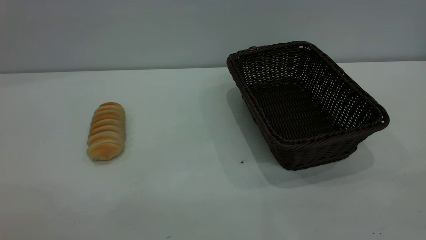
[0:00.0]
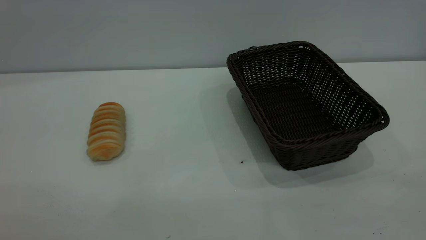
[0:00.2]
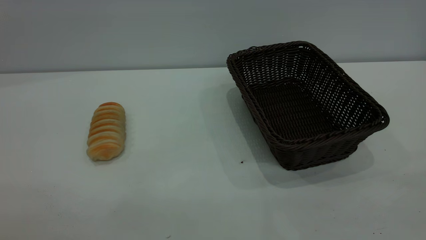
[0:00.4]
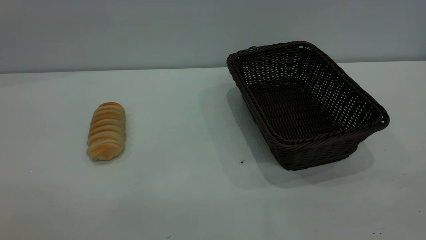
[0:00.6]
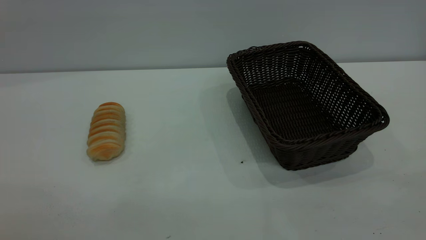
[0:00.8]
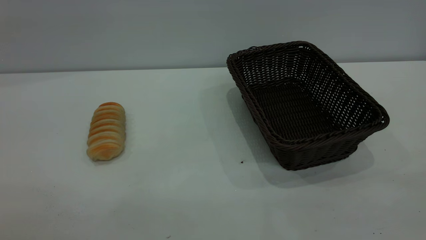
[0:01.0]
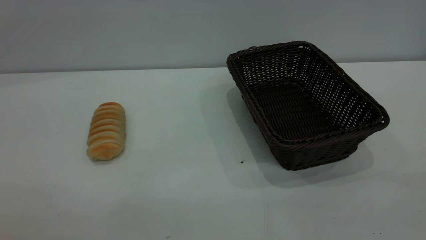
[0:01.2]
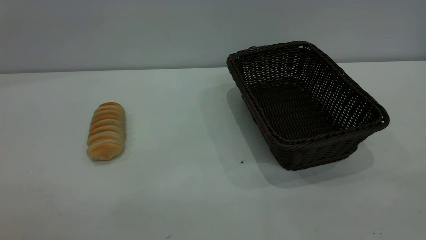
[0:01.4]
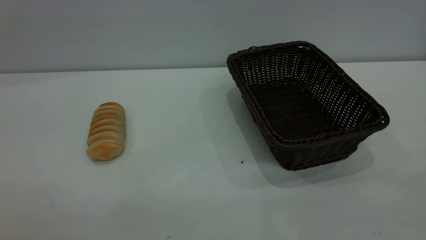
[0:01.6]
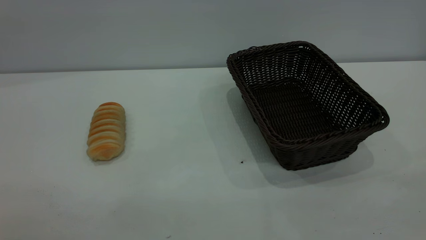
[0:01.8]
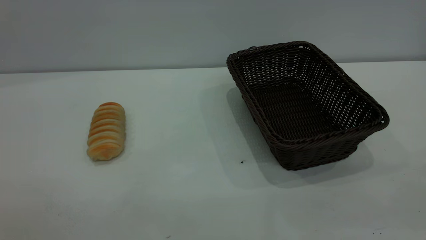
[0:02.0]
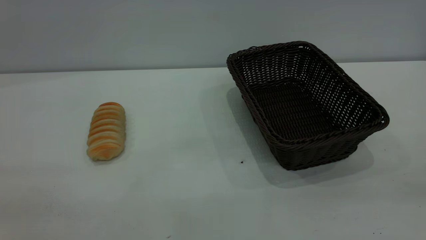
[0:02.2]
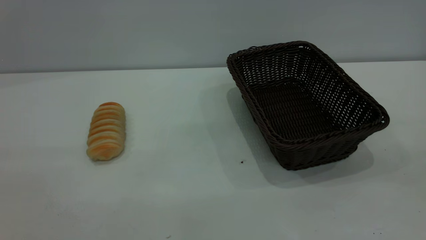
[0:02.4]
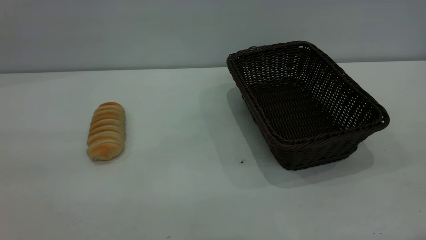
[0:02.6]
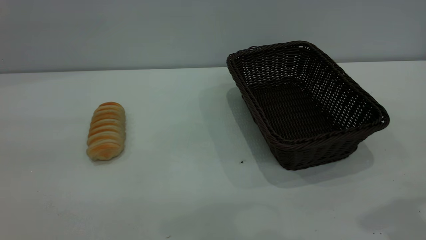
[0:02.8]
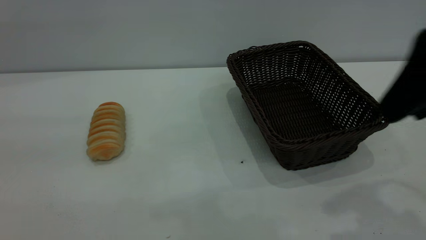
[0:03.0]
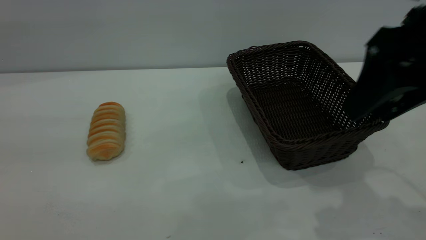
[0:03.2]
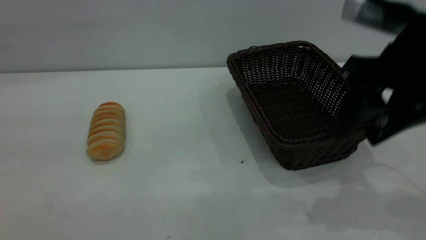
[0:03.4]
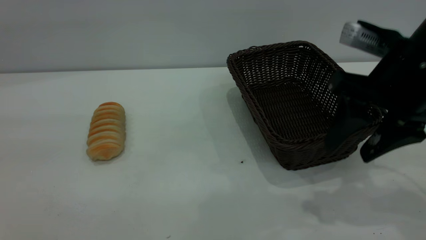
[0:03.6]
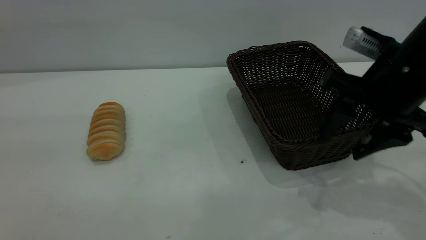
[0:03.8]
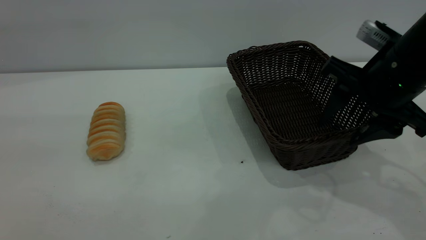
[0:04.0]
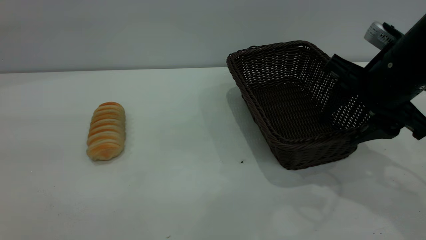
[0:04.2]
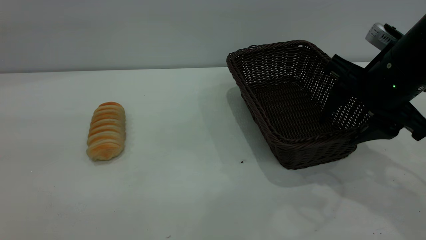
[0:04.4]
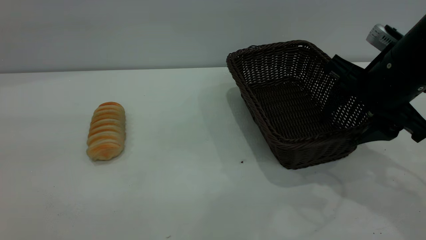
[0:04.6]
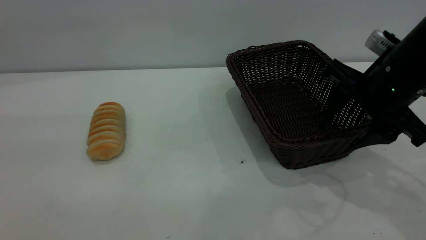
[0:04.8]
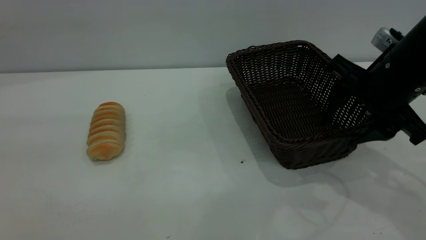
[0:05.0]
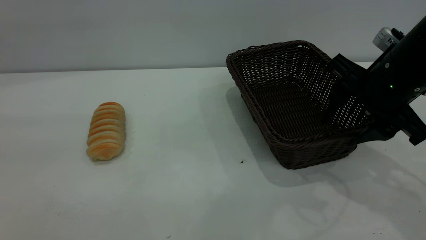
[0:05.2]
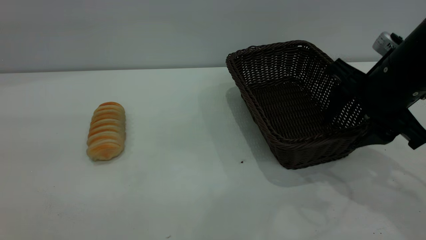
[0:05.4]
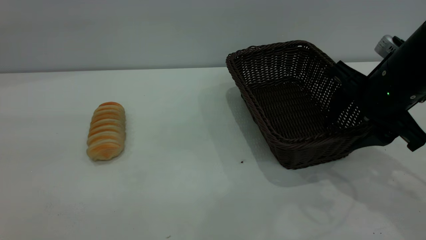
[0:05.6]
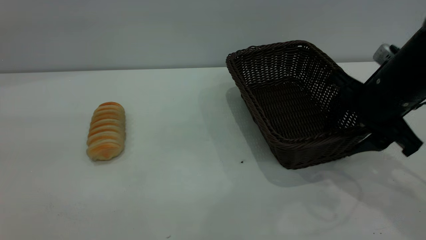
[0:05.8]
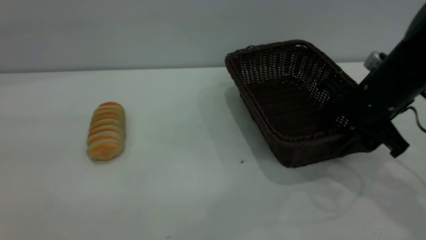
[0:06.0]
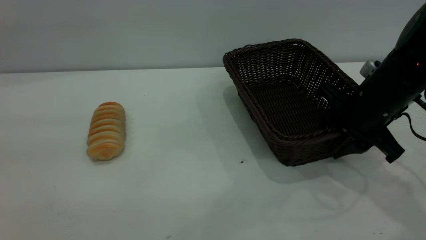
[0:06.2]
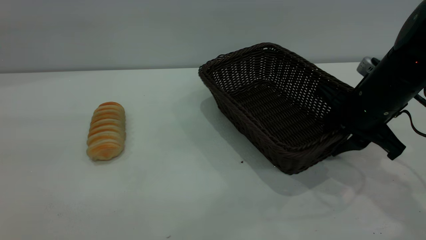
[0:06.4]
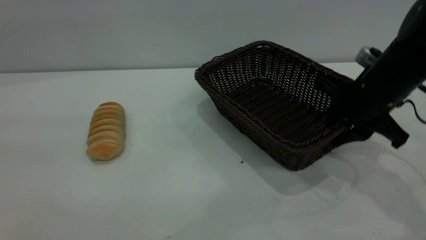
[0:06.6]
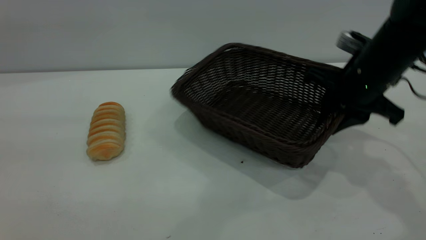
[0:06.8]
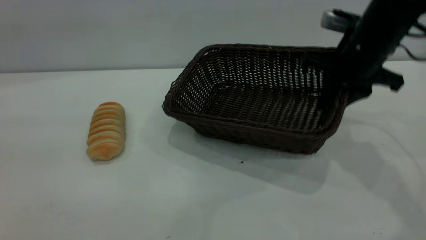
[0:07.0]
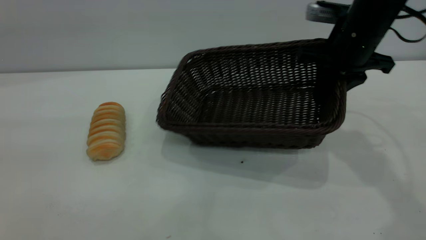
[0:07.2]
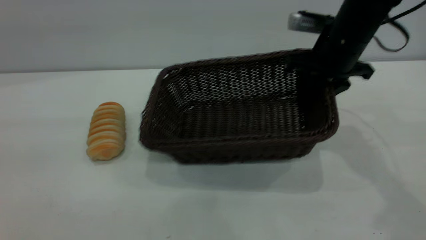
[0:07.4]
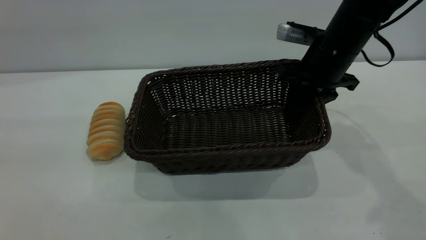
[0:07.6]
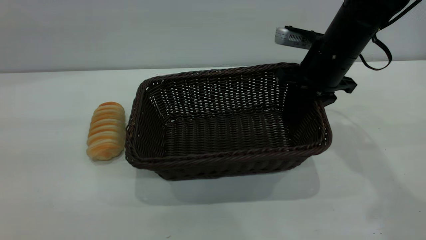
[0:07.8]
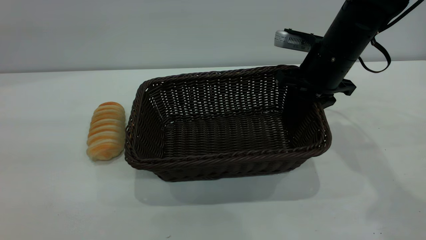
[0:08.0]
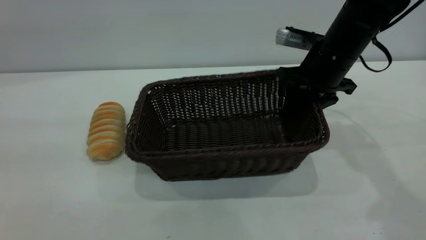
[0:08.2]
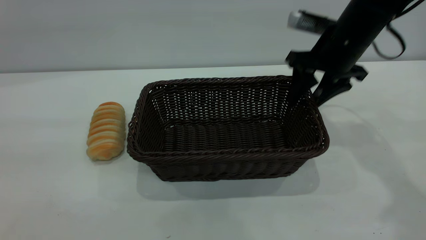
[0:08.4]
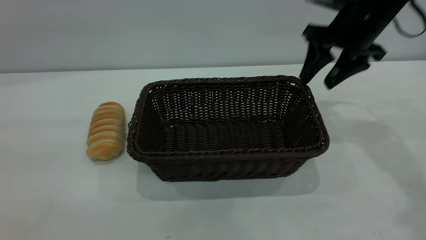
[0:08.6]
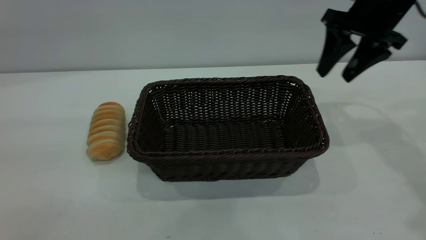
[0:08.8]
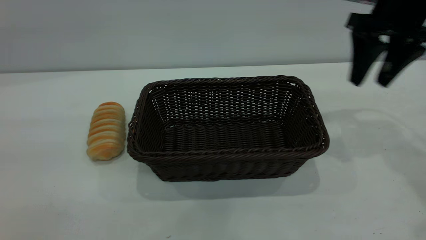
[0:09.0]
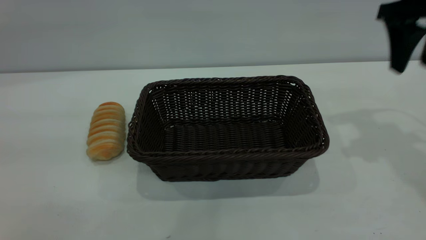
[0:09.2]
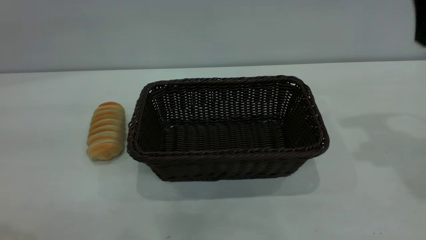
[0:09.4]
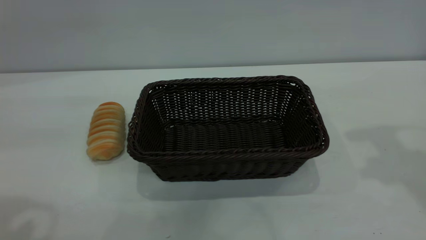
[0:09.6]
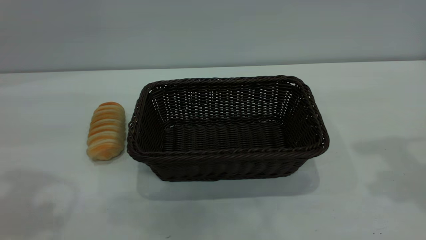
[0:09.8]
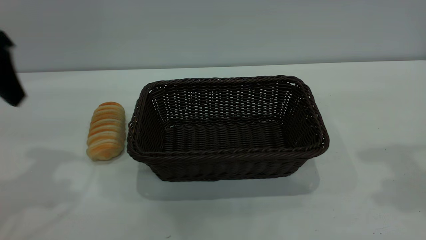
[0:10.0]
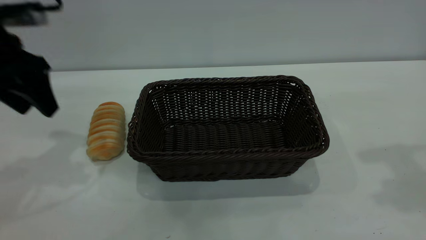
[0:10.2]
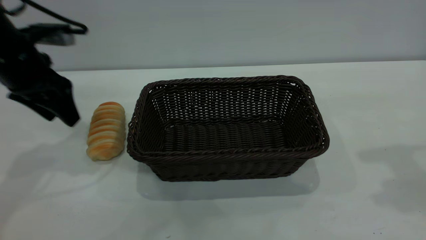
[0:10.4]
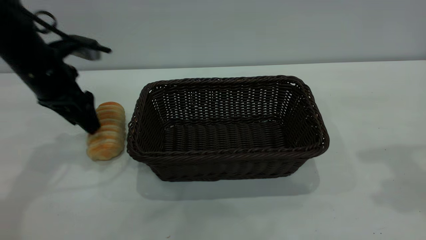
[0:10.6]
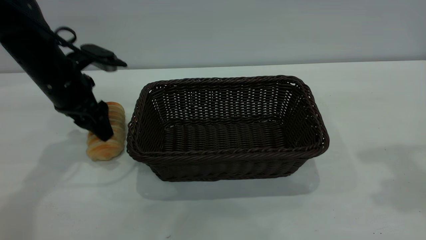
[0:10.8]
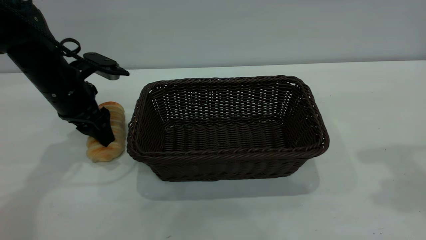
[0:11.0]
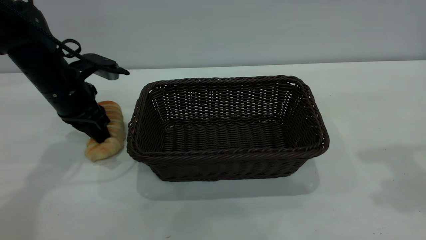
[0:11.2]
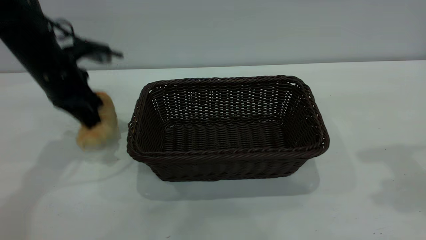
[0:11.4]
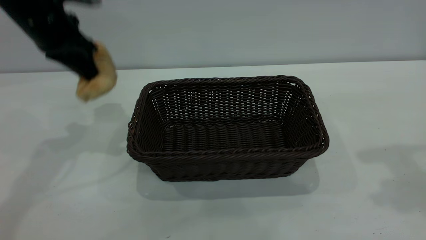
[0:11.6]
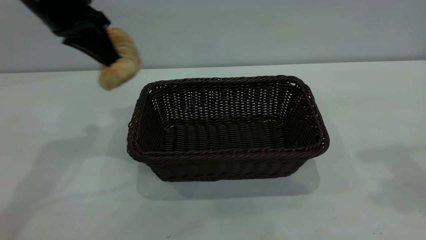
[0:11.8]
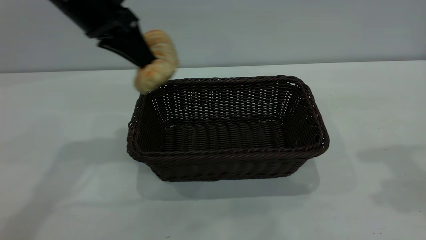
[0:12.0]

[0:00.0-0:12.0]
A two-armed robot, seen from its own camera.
Task of the whole recording: One hand grasps the black basket and places it in the middle of the table, while the other hand picks up the long bread and puts it into the black basket.
Step, 0:00.0 to 0:08.8: Move the basket to the center of view.
0:00.0 to 0:01.6: Both grippers stay put.
0:01.6 to 0:03.0: The right gripper goes about 25 cm forward.
0:03.0 to 0:04.4: The right gripper shifts some 15 cm downward and forward.
0:04.4 to 0:06.0: The right gripper moves downward, about 5 cm.
0:06.0 to 0:07.6: The right gripper is displaced forward by some 10 cm, and closes its fingers.
0:07.6 to 0:09.0: The right gripper goes approximately 10 cm upward and to the right, and opens.
0:09.0 to 0:10.4: The right gripper is displaced backward and upward by approximately 15 cm; the left gripper is displaced forward and downward by about 35 cm.
0:10.4 to 0:12.0: The left gripper shifts roughly 15 cm to the right and upward, and closes.

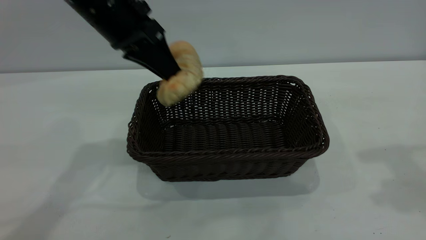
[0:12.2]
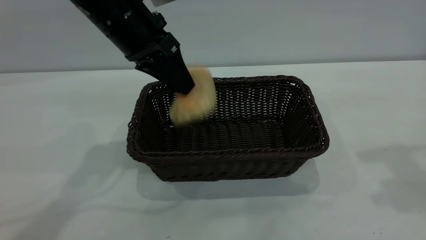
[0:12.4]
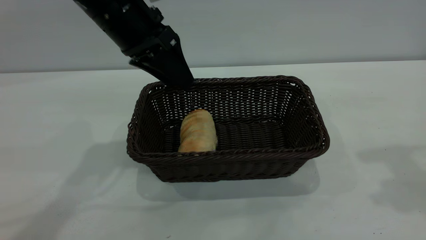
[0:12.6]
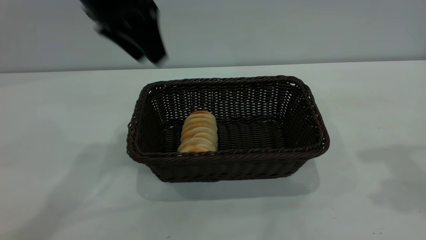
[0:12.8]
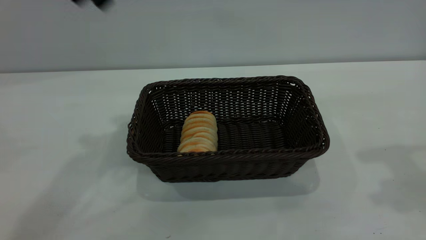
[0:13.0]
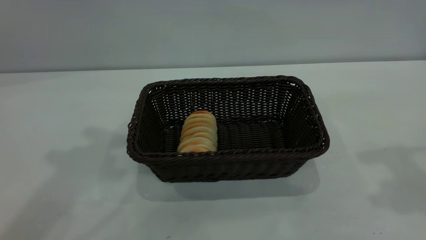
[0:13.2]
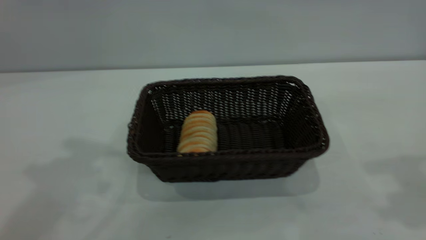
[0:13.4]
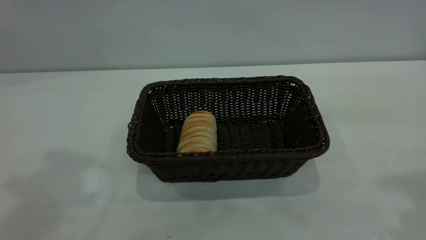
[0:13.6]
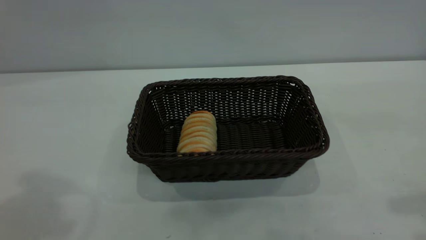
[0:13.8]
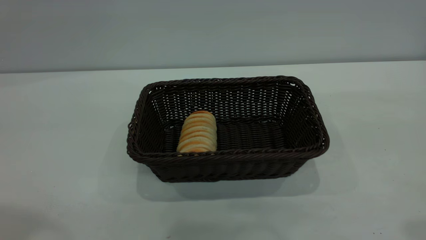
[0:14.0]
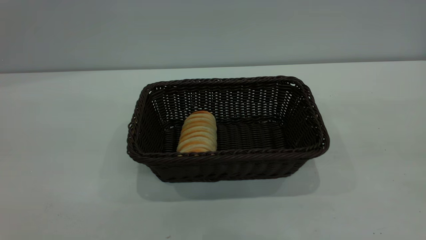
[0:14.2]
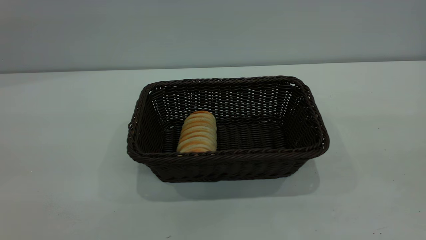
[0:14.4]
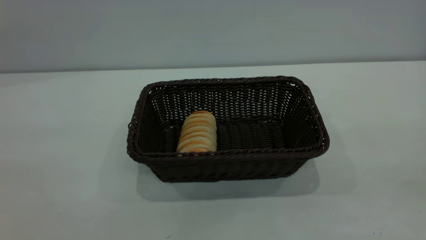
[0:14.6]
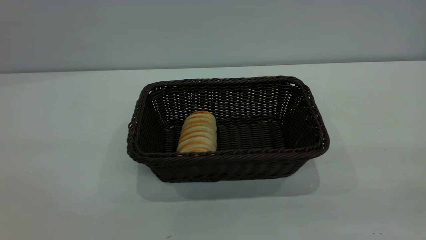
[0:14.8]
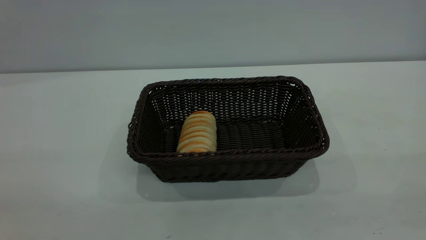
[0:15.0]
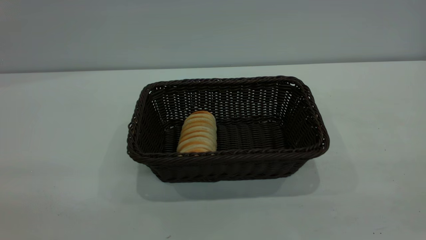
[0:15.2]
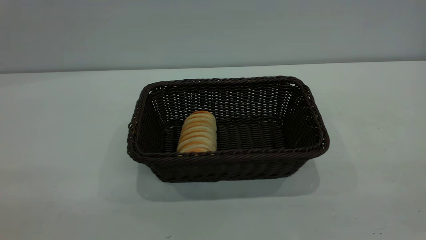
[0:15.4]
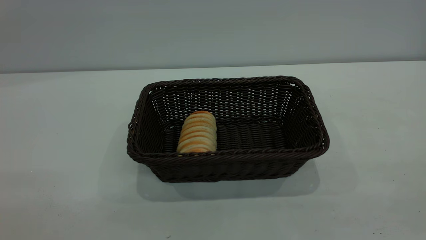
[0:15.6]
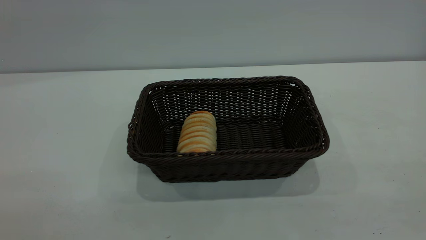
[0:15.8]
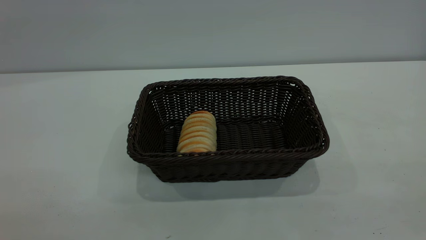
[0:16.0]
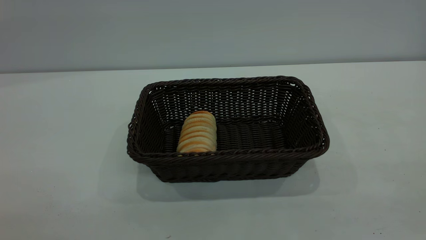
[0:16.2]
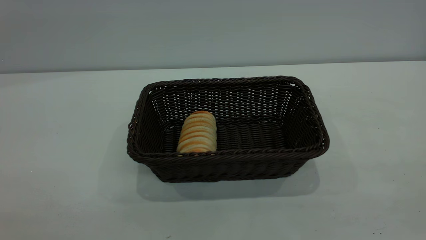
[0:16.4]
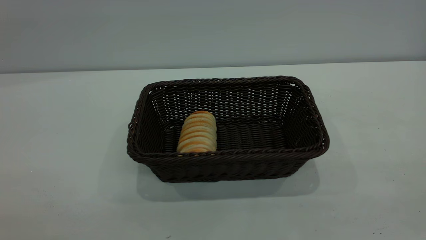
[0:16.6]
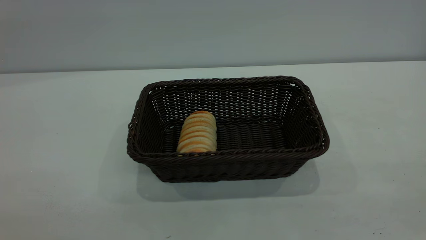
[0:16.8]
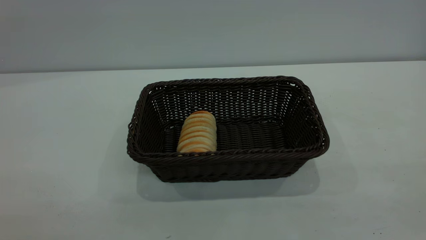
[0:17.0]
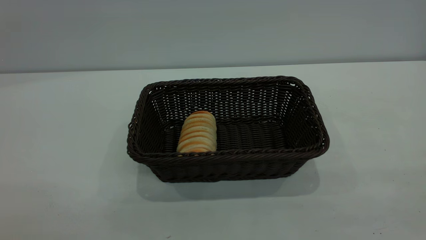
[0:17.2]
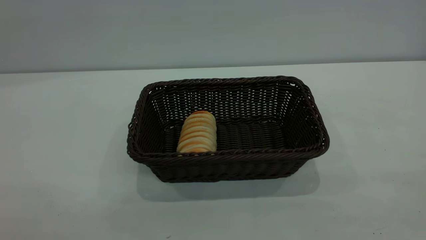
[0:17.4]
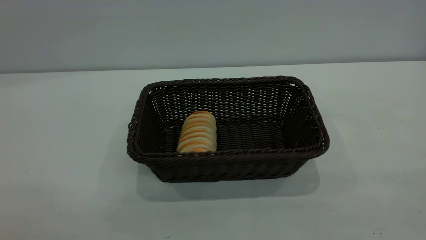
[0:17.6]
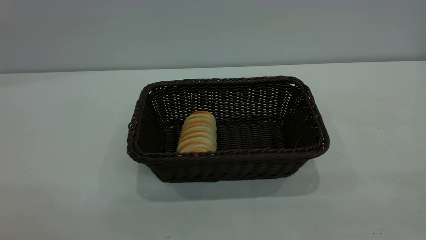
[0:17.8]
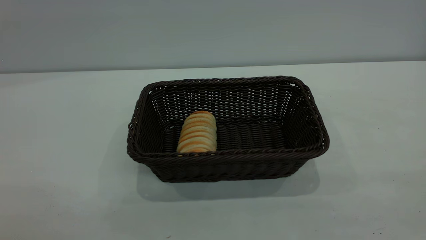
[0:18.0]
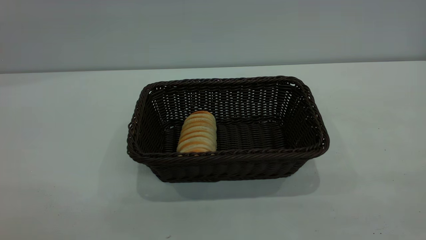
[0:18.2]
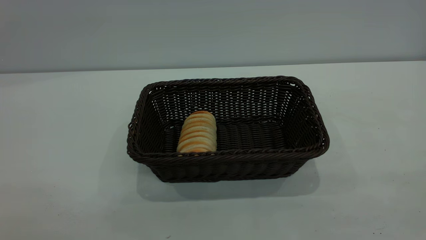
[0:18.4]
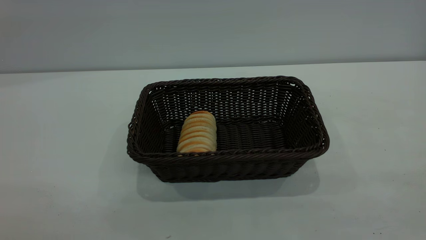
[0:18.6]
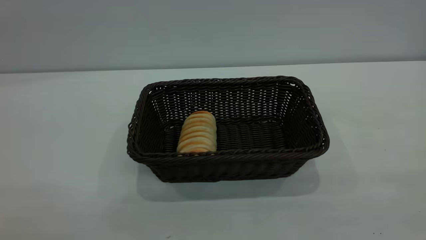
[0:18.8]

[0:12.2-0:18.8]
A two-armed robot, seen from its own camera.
Task of the whole recording: One hand grasps the black basket and places it in the middle of the table, while the other hand picks up the long bread and puts it into the black basket.
0:12.2 to 0:13.8: The right gripper goes approximately 10 cm backward, while the left gripper travels upward, backward and to the left by roughly 30 cm, and opens.
0:17.2 to 0:18.8: Both grippers stay put.
